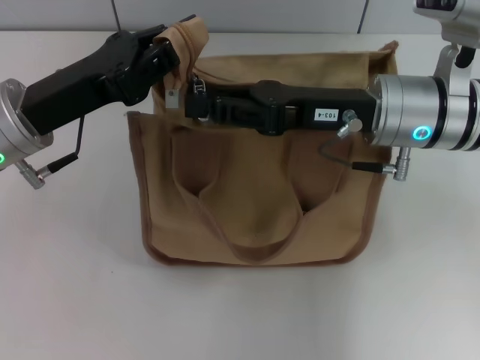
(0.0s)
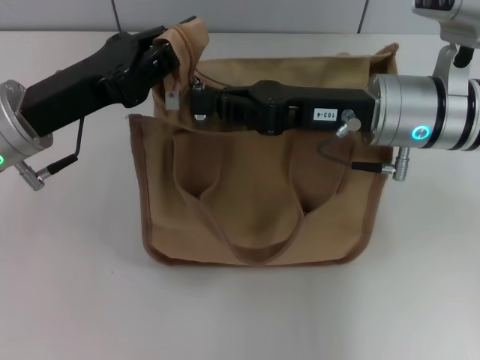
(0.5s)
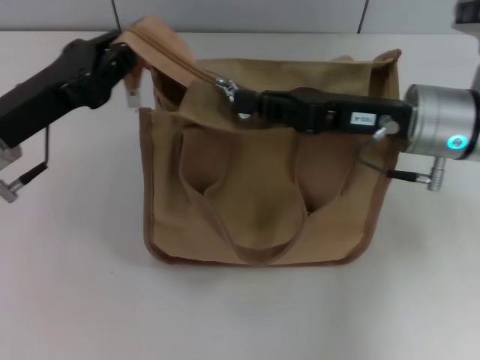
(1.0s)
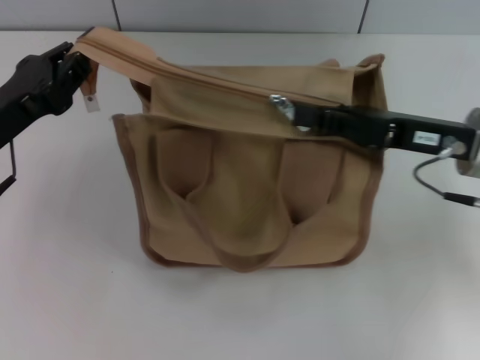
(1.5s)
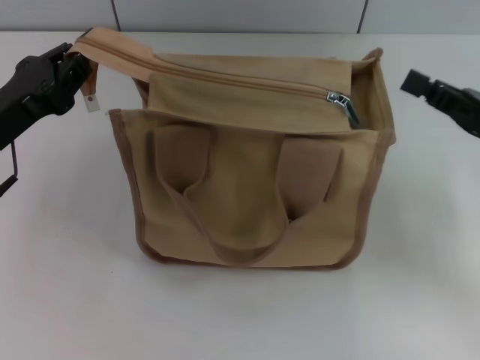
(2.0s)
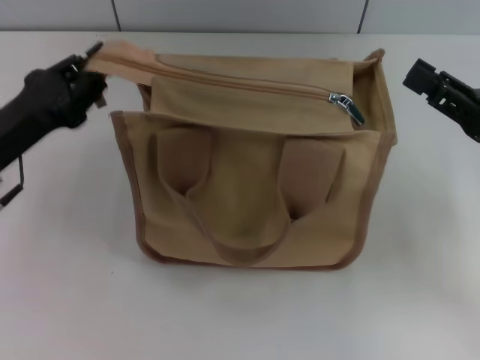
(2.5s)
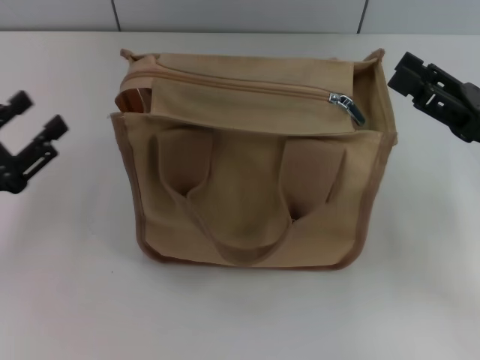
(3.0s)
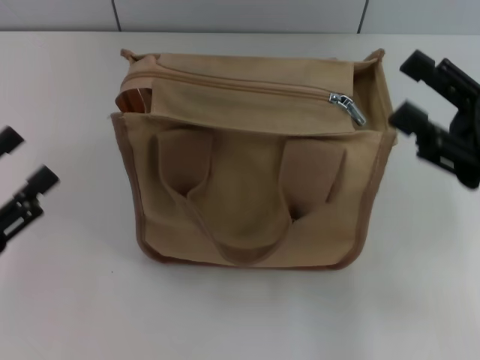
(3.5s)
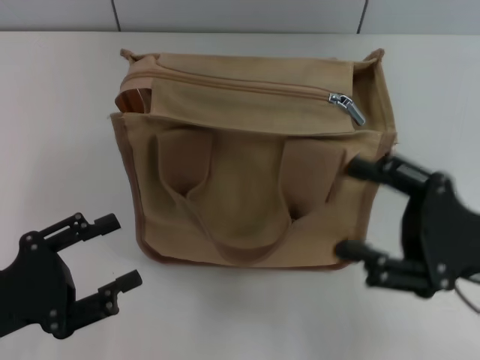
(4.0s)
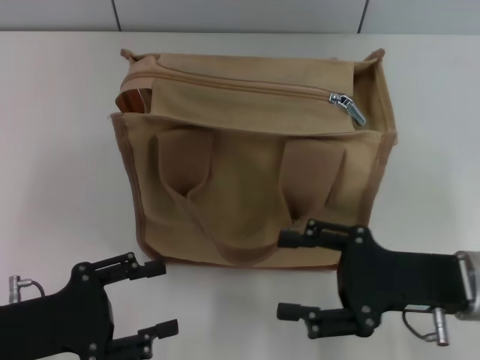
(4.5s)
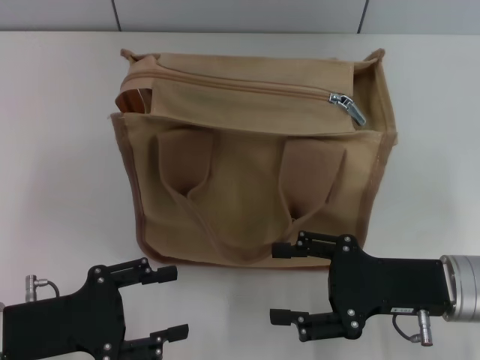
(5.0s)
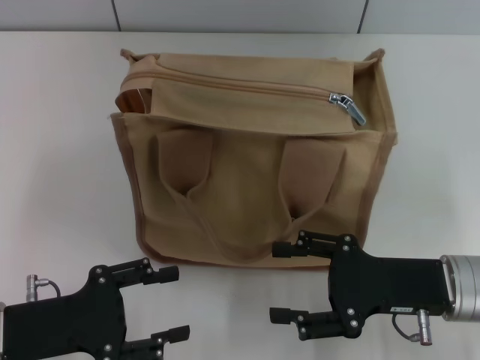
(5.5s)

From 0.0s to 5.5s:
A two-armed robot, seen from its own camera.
Step, from 2.0s to 2.5s: Grab the zipper with your left hand.
From 0.0s to 2.0s: The left gripper goes about 5 cm to the left. Meanwhile the right gripper shifts roughly 15 cm to the right, and closes up.
From 2.0s to 3.5s: The right gripper opens up, while the left gripper is displaced backward by approximately 10 cm, and opens its fingers.
From 3.5s to 5.5s: The right gripper goes approximately 10 cm downward and to the left; the left gripper travels to the right by some 5 cm.

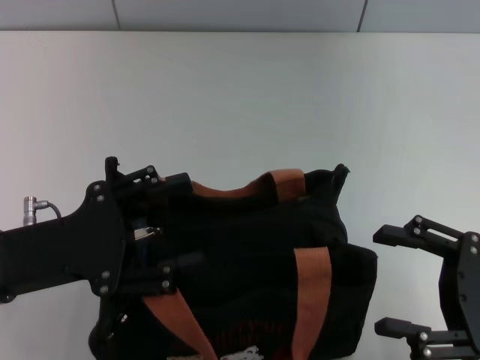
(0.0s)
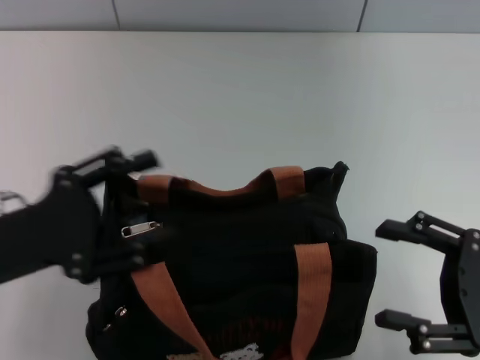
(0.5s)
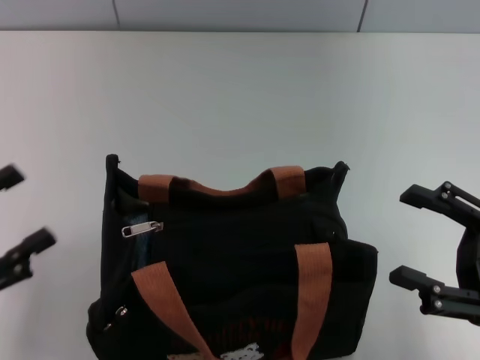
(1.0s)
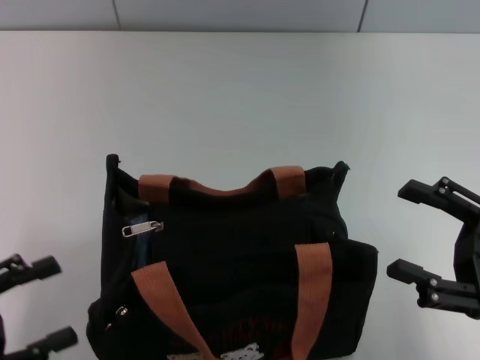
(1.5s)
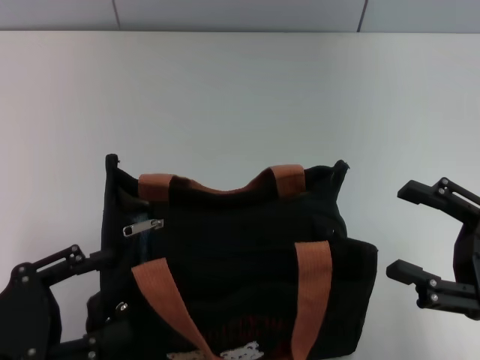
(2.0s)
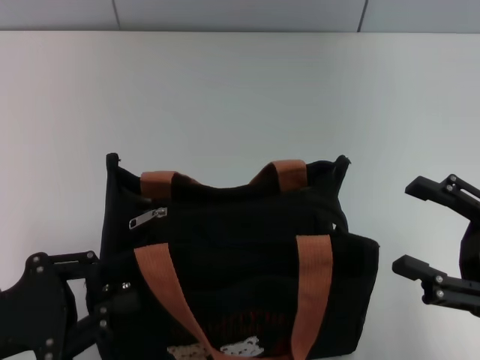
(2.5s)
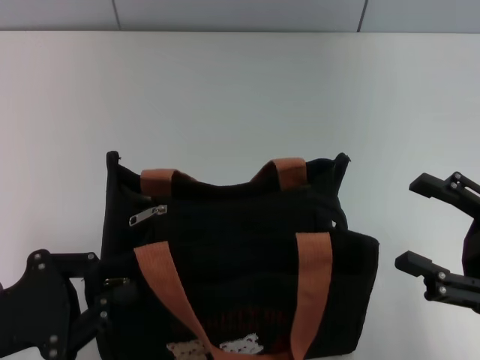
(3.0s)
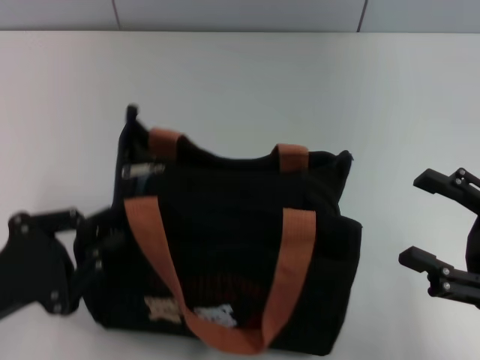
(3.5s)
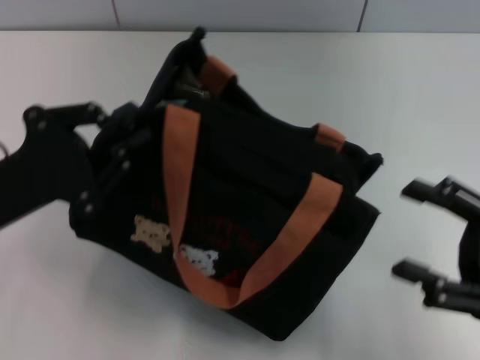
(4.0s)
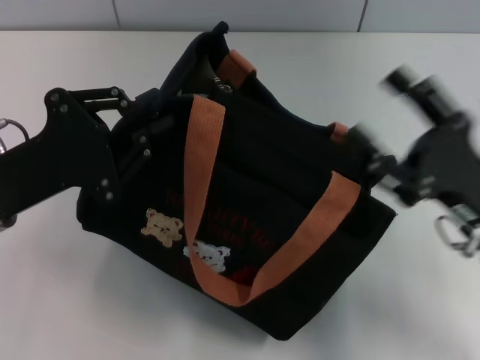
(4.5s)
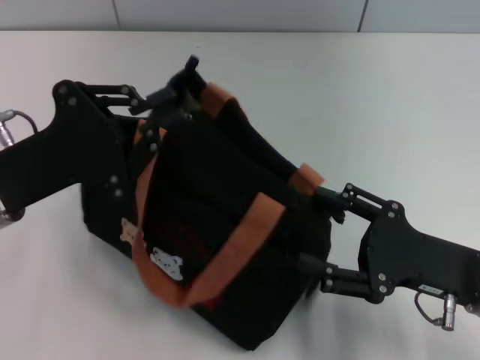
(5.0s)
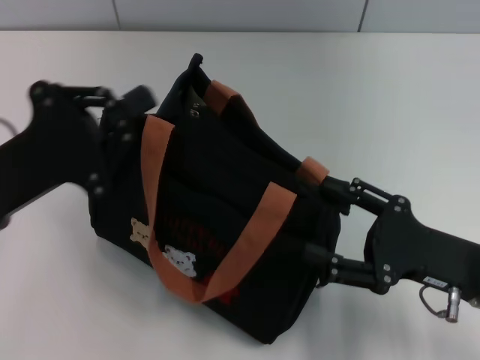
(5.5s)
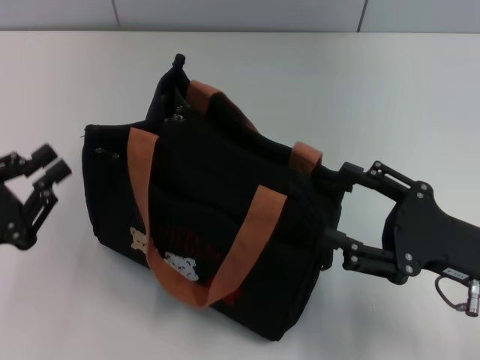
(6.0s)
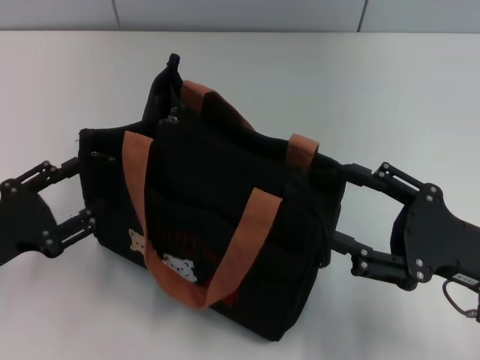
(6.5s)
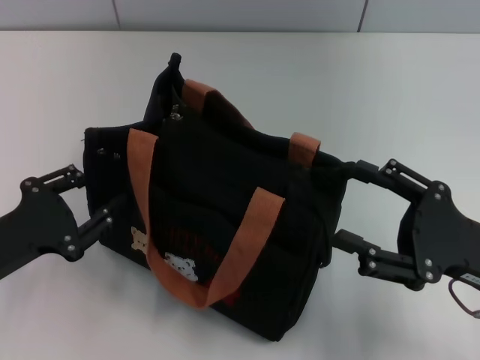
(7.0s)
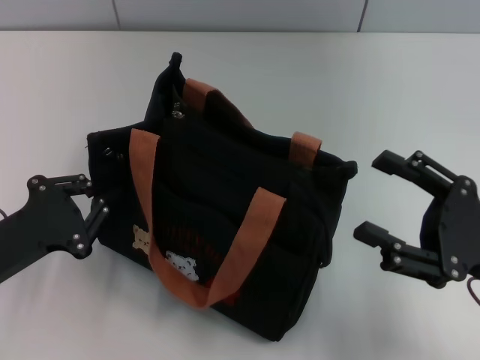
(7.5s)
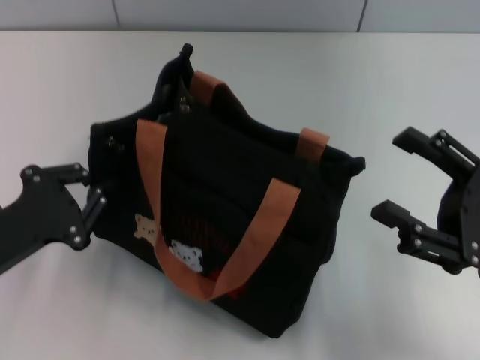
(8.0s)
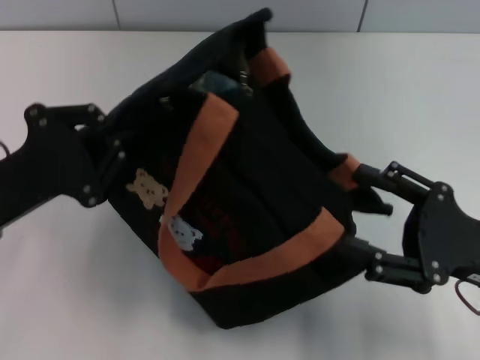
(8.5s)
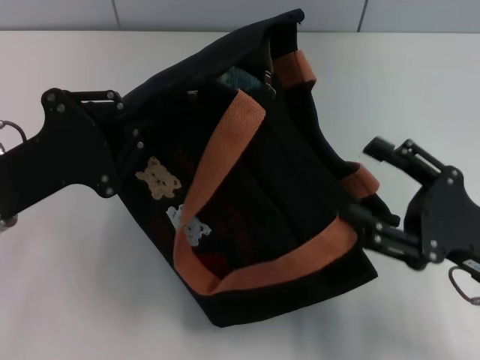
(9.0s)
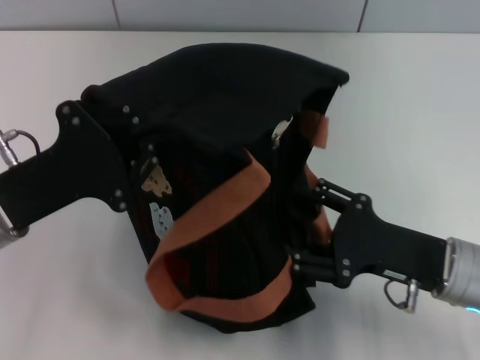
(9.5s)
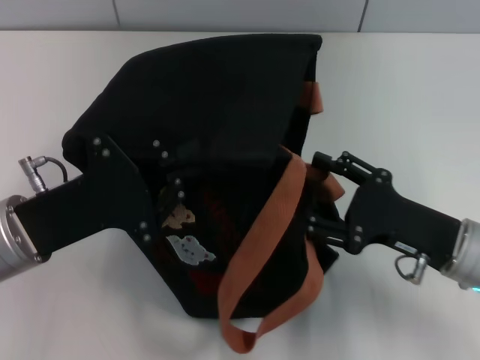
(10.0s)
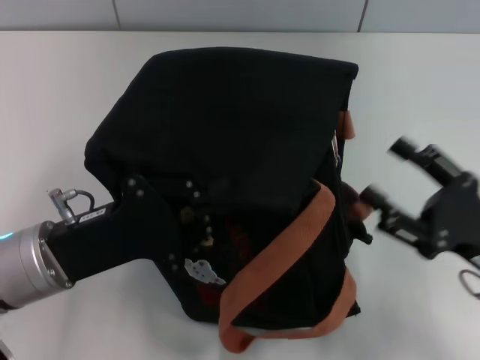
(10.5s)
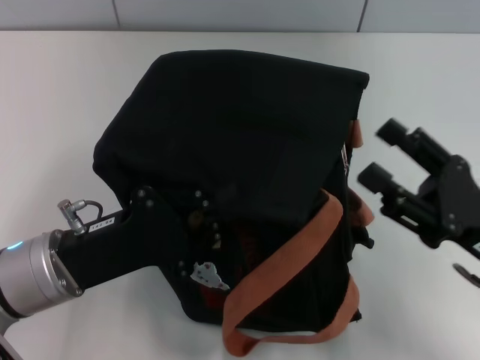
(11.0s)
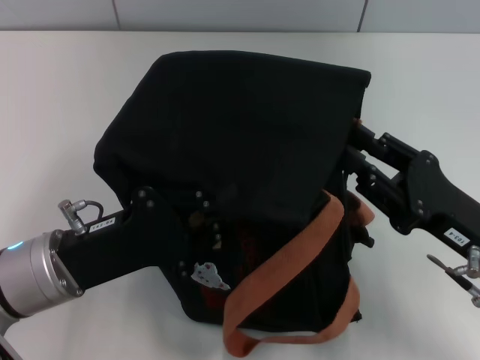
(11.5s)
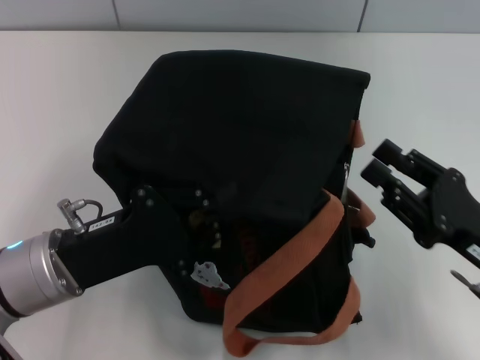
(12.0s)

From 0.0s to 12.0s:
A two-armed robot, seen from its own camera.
From 0.0s to 2.0s: The left gripper goes roughly 10 cm backward and to the left.
From 2.0s to 4.0s: The left gripper is displaced forward by roughly 10 cm, and closes its fingers.
From 4.0s to 6.0s: The right gripper shifts by about 5 cm; the left gripper heads backward and to the left, covering approximately 10 cm.
From 6.0s to 8.0s: The left gripper opens, then closes again.
From 8.0s to 10.0s: The left gripper goes about 5 cm to the right. The right gripper changes place by roughly 5 cm.
From 10.0s to 12.0s: The right gripper changes place by about 5 cm, and closes its fingers.

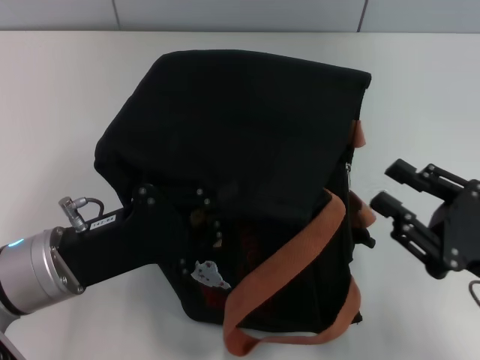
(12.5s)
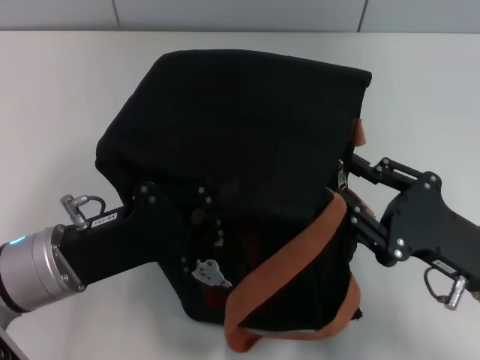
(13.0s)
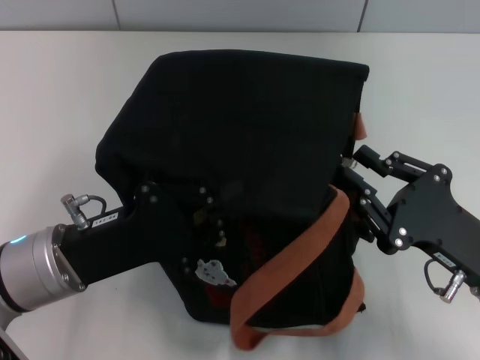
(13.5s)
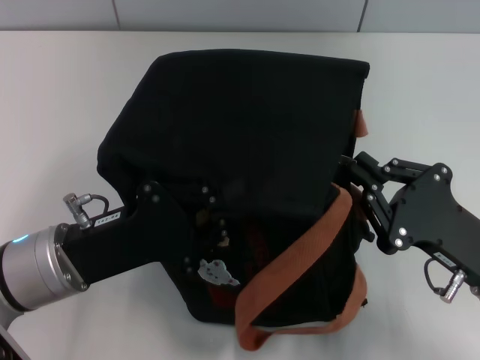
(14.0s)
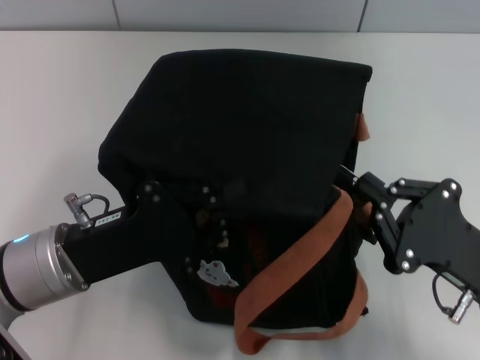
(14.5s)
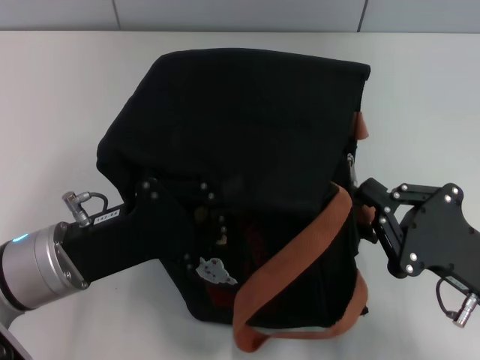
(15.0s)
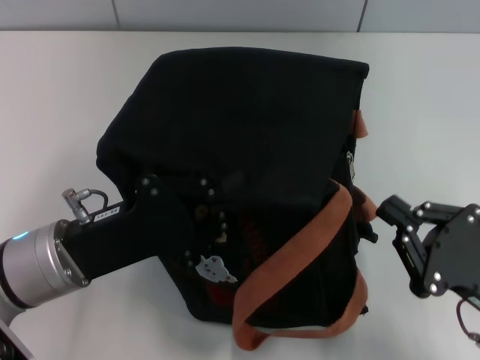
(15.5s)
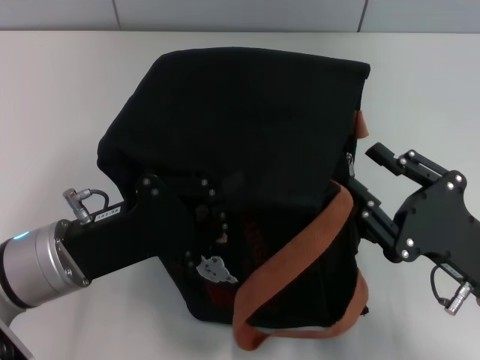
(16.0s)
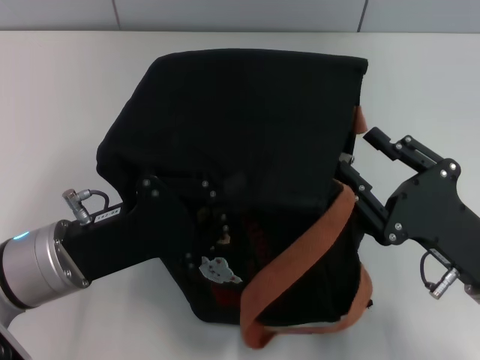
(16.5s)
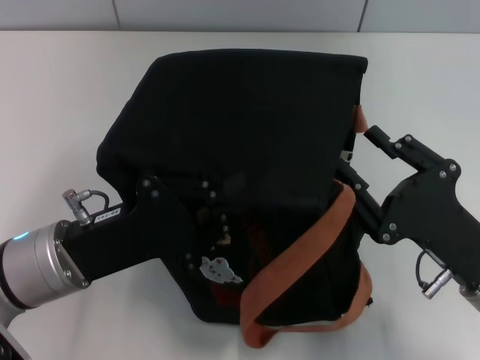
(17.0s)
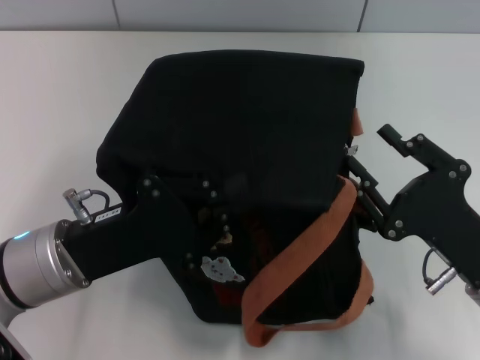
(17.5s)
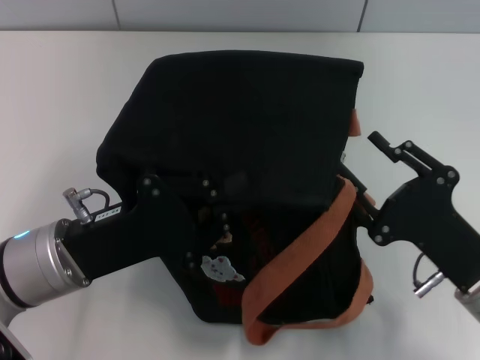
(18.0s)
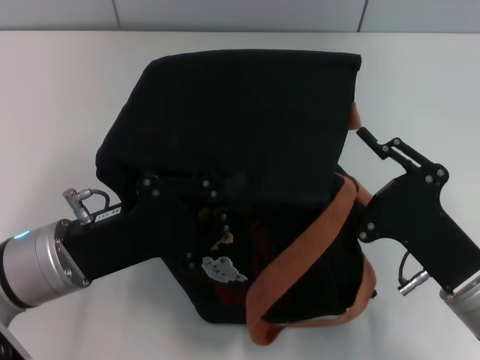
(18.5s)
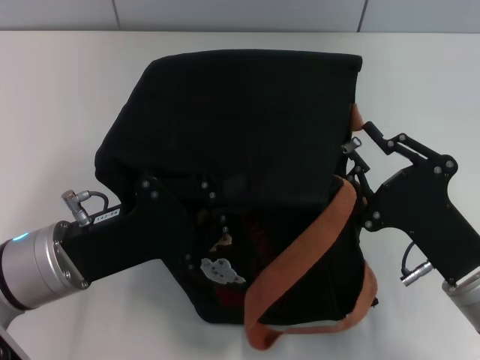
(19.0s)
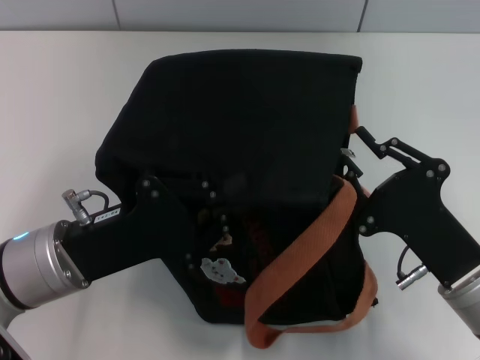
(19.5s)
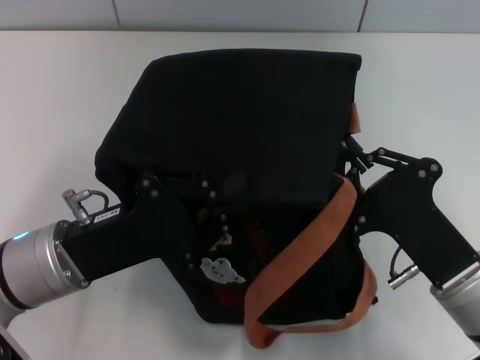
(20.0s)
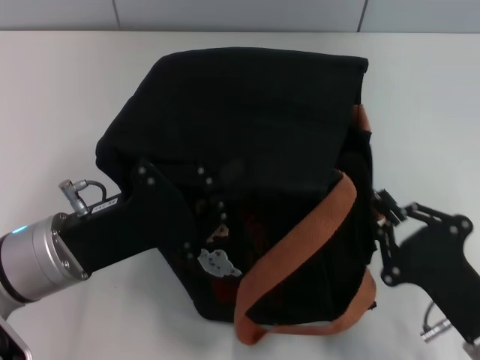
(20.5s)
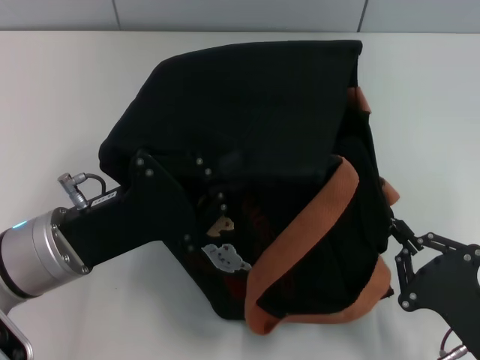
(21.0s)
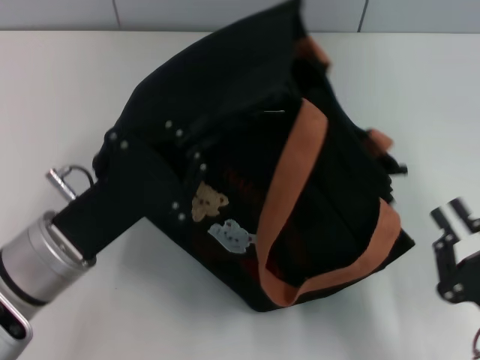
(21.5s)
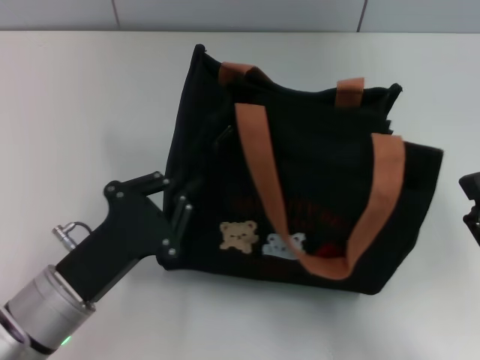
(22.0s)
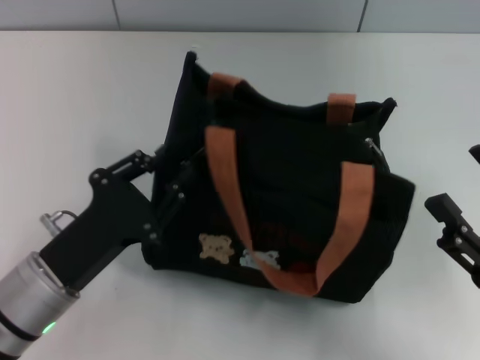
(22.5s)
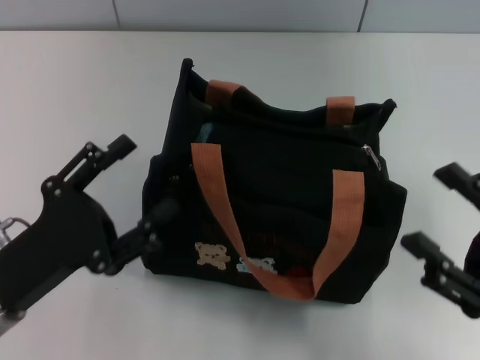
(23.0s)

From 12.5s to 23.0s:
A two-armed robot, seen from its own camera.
Step, from 12.5s to 21.5s: Pull open the zipper with your right hand.
Step, from 22.0s to 22.5s: Grab the bag with your left hand.
From 12.5s to 14.5s: The right gripper closes its fingers.
From 14.5s to 16.5s: The right gripper opens.
From 19.0s to 21.0s: The right gripper moves backward, about 5 cm.
From 21.0s to 23.0s: The right gripper travels upward by about 5 cm, and opens up, while the left gripper travels backward by some 5 cm, and opens up.
